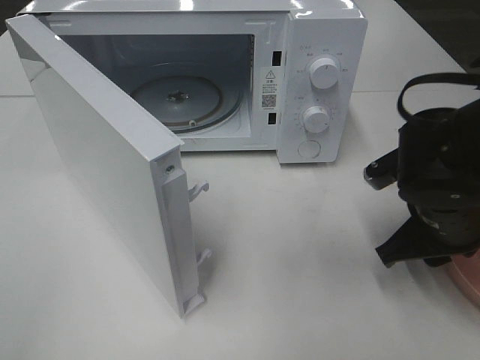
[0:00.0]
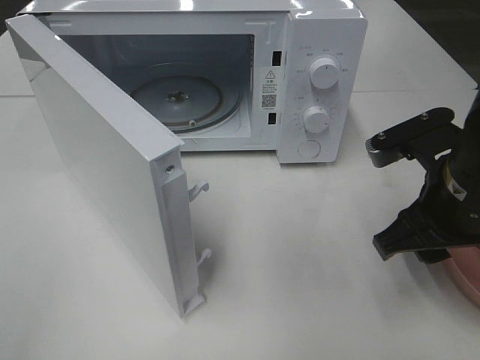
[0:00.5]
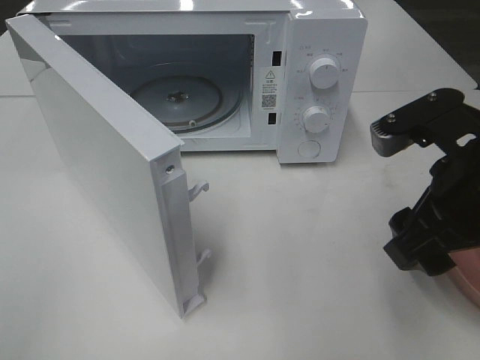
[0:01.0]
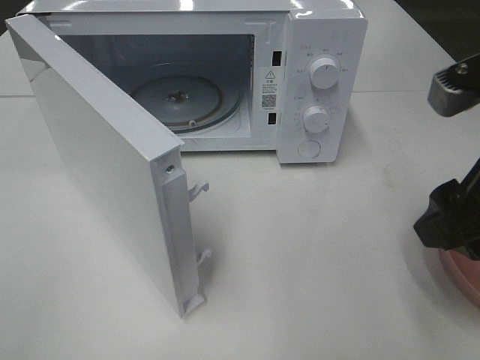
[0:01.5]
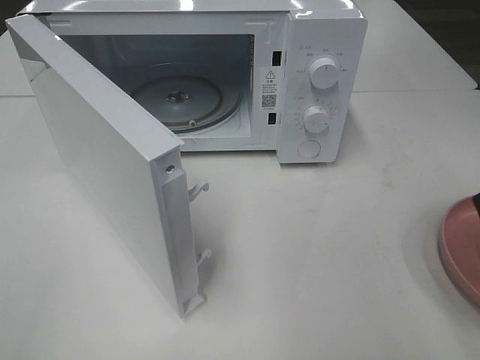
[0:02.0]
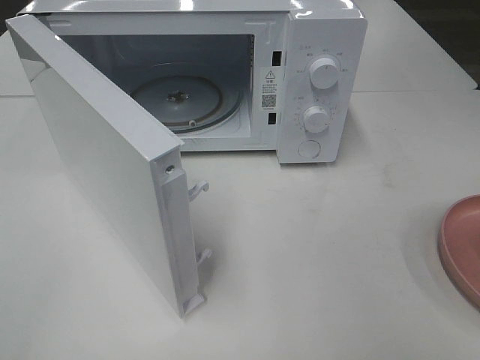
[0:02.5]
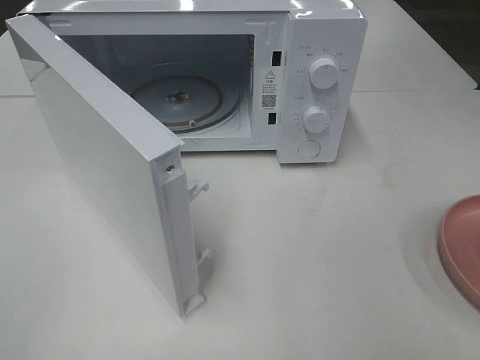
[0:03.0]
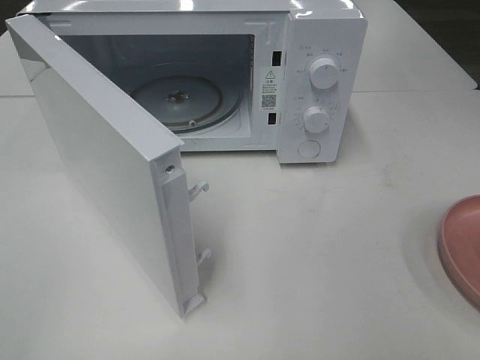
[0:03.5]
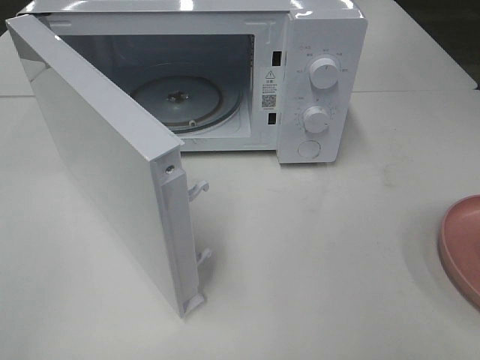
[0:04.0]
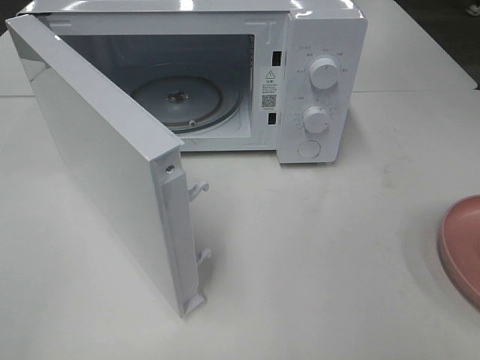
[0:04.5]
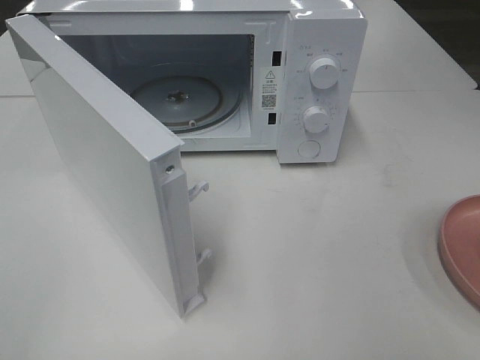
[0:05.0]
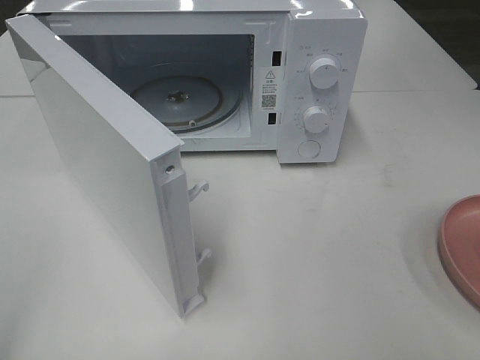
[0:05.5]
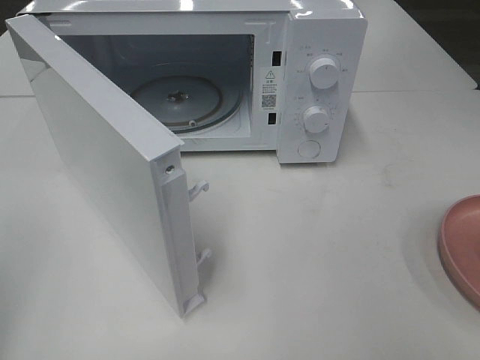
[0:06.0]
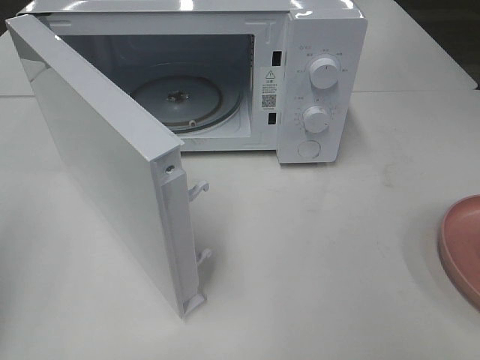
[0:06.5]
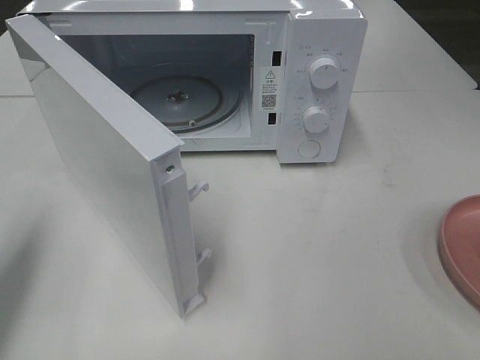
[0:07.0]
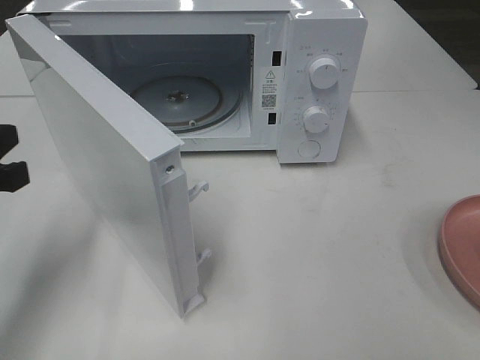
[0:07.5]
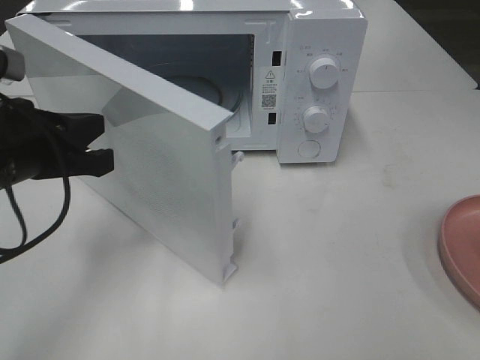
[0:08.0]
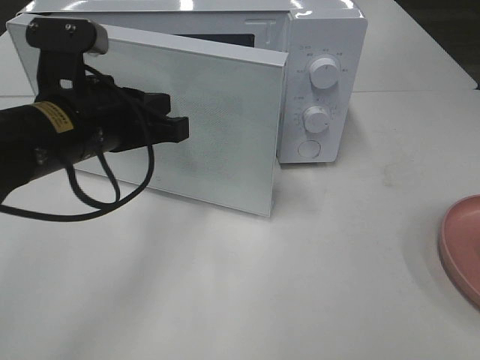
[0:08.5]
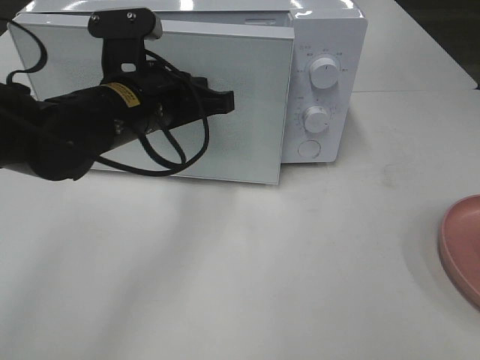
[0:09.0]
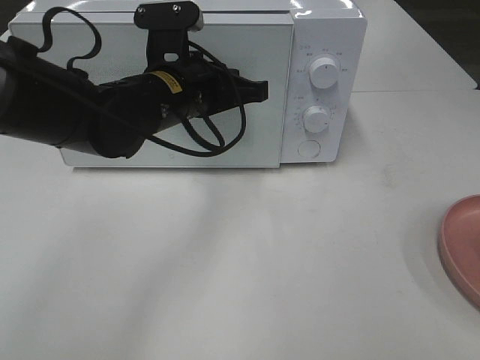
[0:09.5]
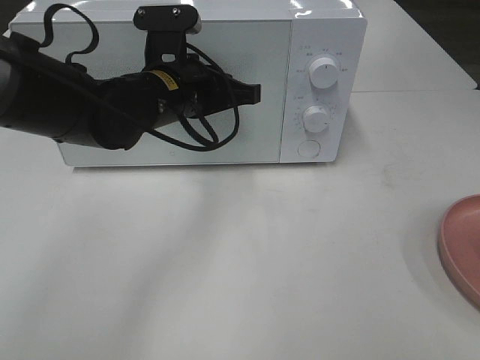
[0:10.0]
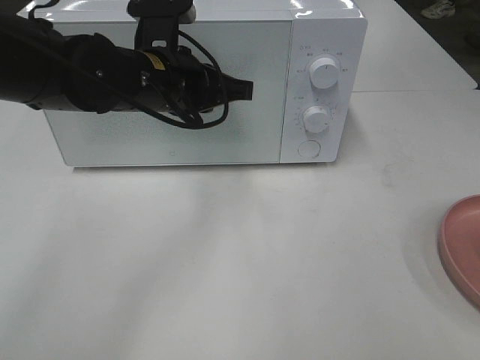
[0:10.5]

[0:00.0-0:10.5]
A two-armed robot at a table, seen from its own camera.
Task of the whole recording: Heat the burger.
Step, 0:00.0 to 0:10.0: Left hand: close the microwave door.
0:00.0 to 0:02.0: The right gripper shifts roughly 20 cm upward and backward.
0:06.5 to 0:08.5: The left gripper heads to the right and forward, covering approximately 25 cm.
0:08.5 to 0:10.5: The left gripper heads forward and to the right, covering some 10 cm.

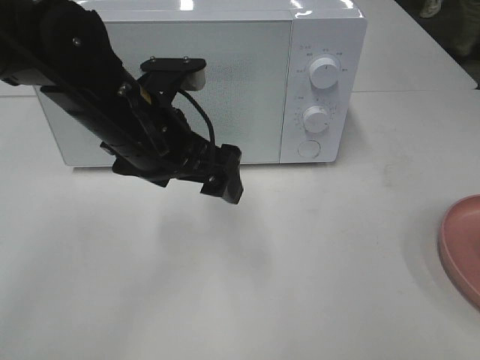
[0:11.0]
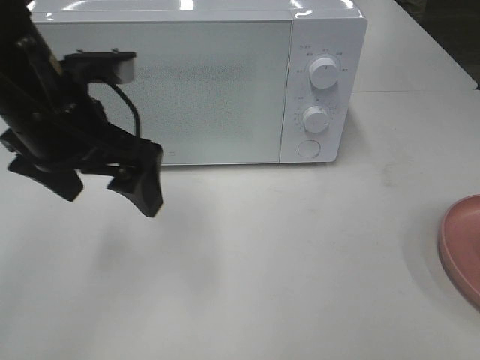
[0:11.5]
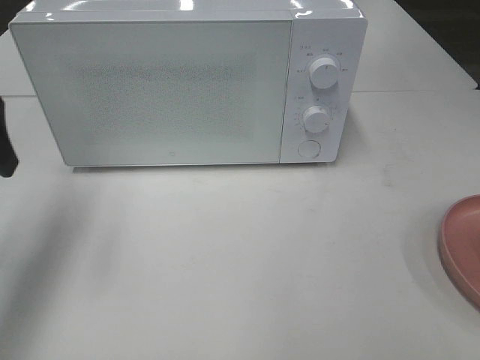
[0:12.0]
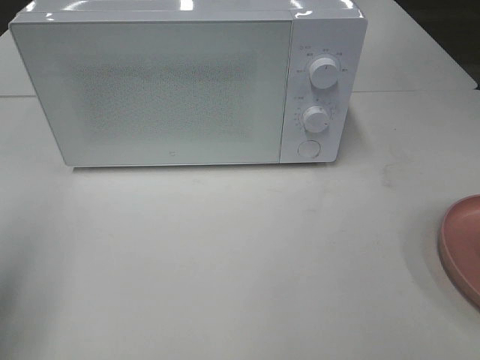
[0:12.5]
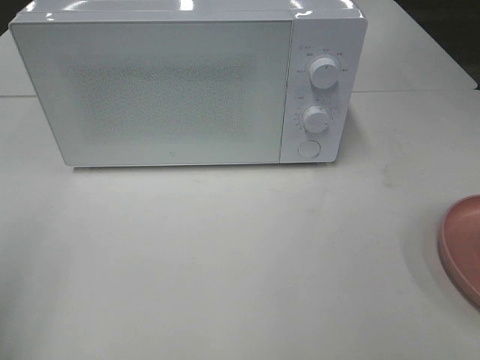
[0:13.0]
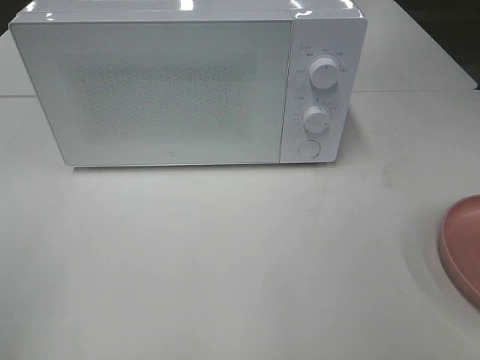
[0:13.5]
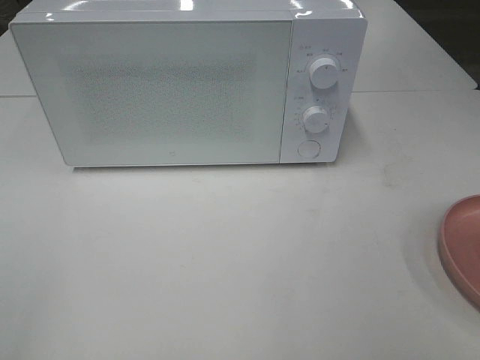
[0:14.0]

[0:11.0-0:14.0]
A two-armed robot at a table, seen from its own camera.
Task of the whole recording: Heat the burger.
0:11.0 to 0:12.5: The left gripper is displaced to the left and backward by about 25 cm.
0:12.5 to 0:14.0: The left gripper goes approximately 15 cm backward.

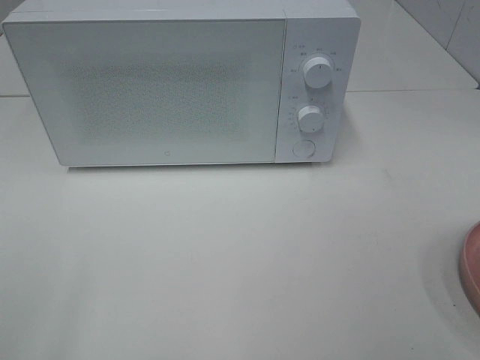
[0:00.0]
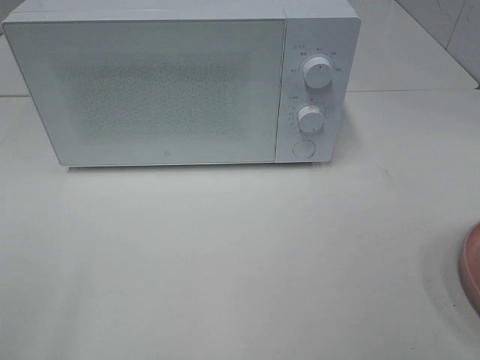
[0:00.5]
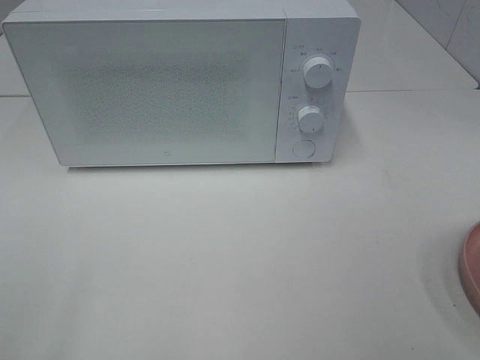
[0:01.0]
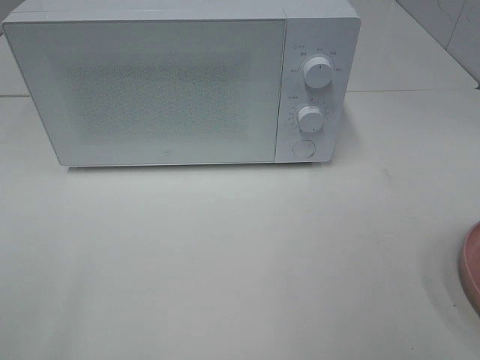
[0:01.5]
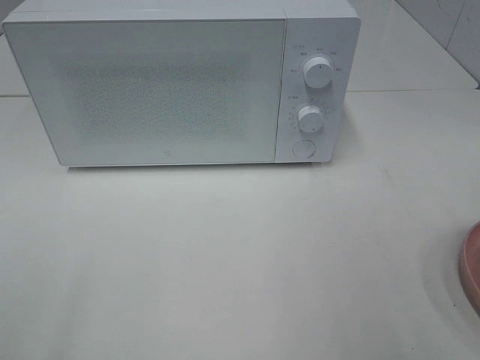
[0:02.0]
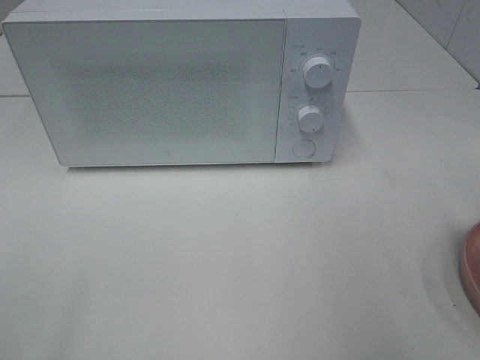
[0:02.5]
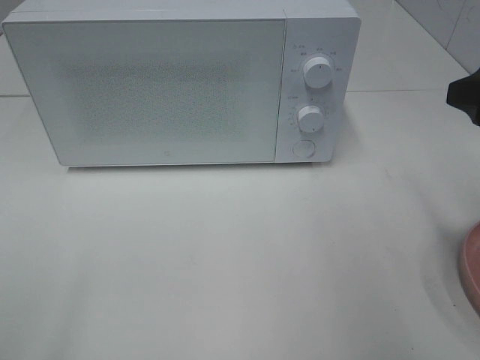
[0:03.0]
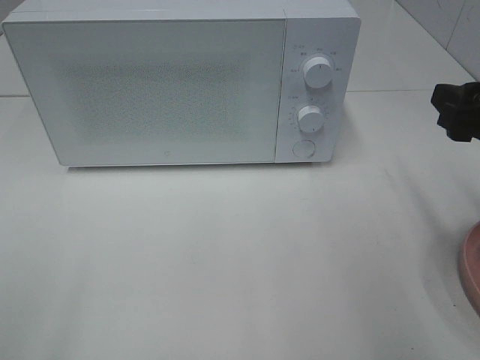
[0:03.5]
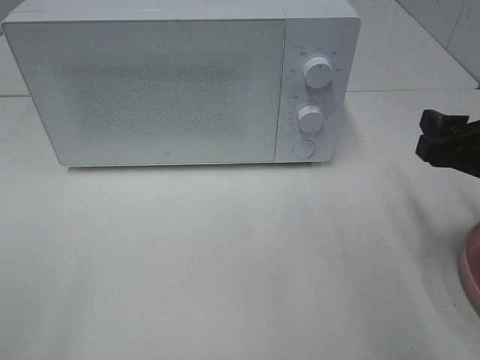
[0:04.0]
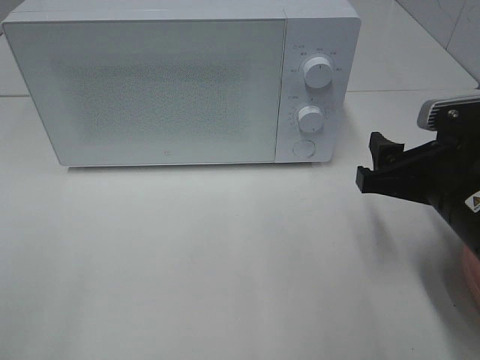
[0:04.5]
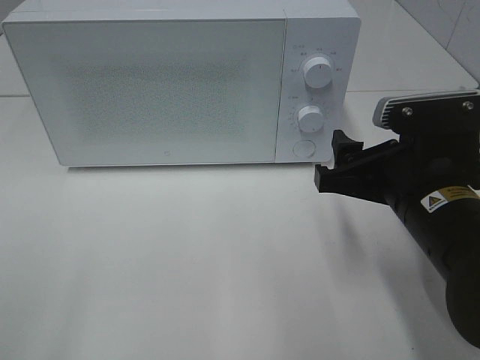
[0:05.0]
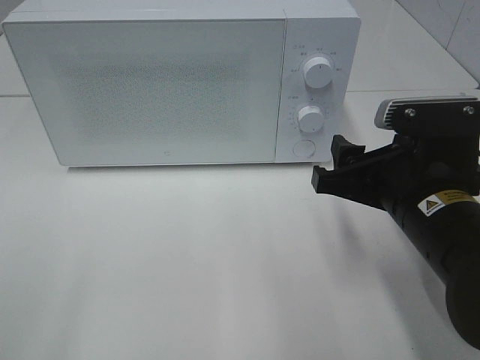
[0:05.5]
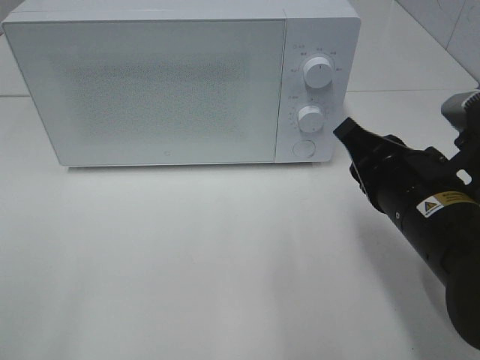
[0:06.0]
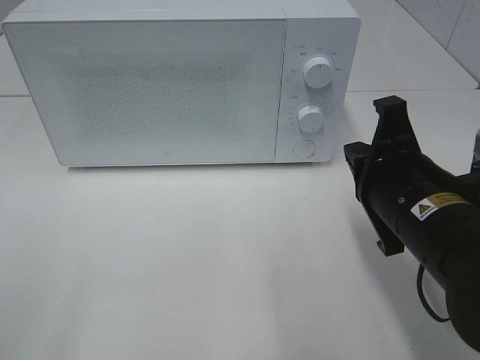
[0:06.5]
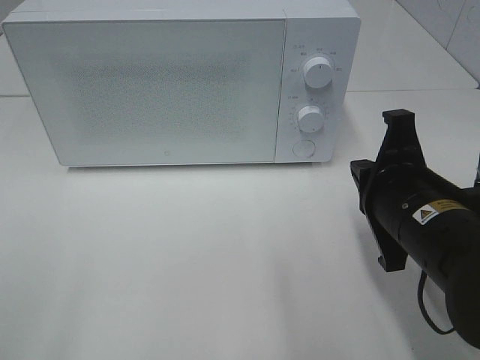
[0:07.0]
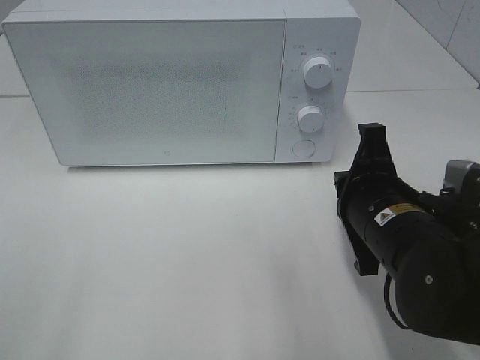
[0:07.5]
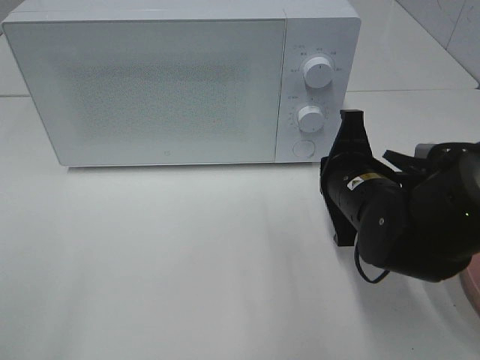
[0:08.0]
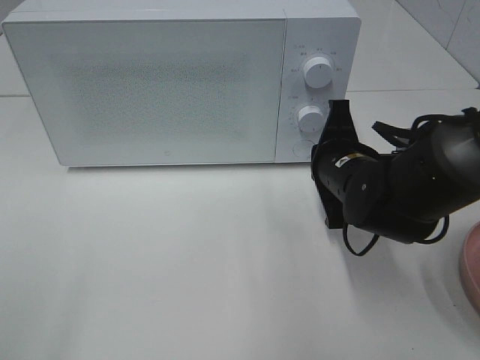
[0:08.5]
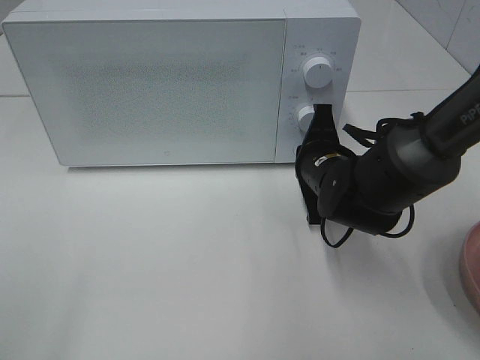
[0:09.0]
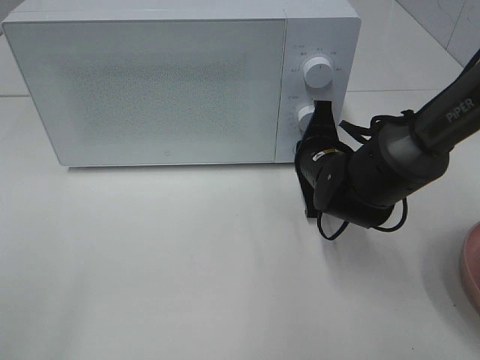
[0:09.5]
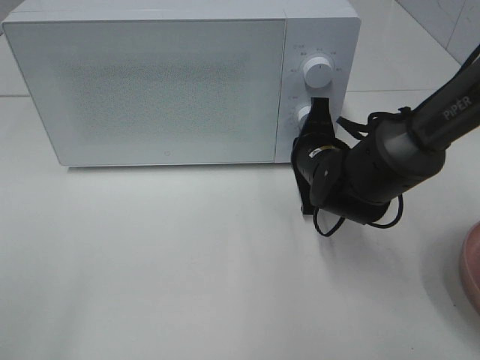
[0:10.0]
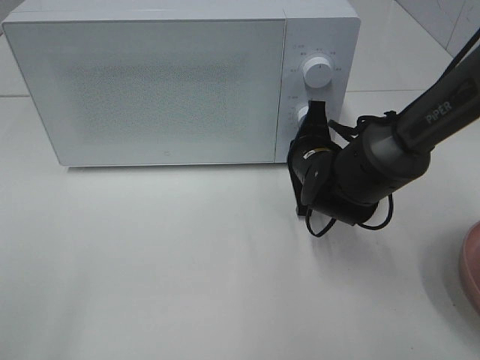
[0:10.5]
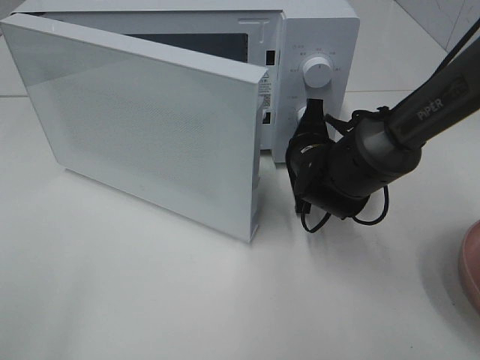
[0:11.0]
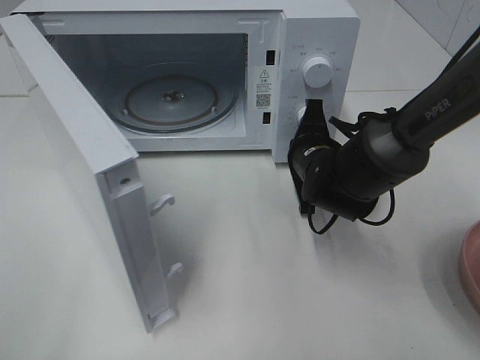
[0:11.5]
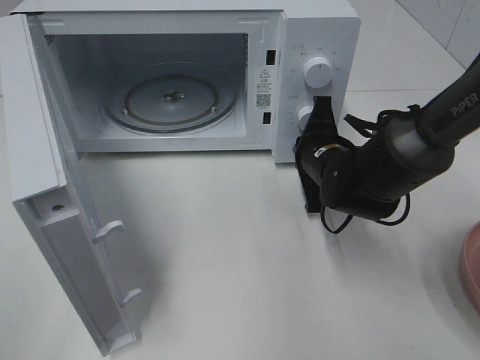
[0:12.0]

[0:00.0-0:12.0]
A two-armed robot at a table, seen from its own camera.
Task of the whole recording: Heat the burger.
0:02.0 to 0:04.0: The right gripper heads downward and forward, covering about 15 cm.
0:04.0 to 0:06.0: The right gripper shifts some 10 cm to the left, and closes up.
0:06.0 to 0:08.0: The right gripper is displaced forward by about 5 cm.
0:08.0 to 0:10.0: The right gripper shifts about 10 cm forward.
